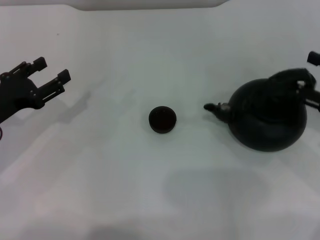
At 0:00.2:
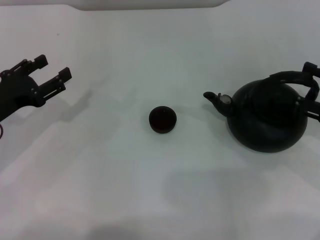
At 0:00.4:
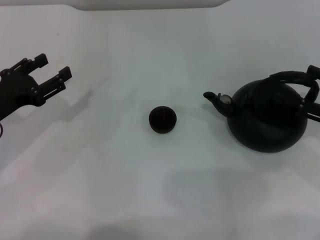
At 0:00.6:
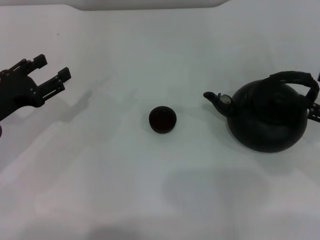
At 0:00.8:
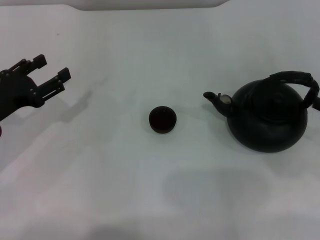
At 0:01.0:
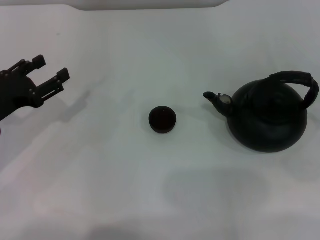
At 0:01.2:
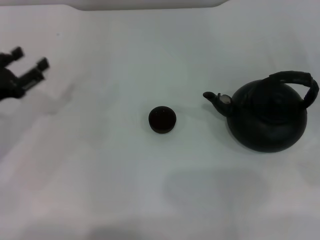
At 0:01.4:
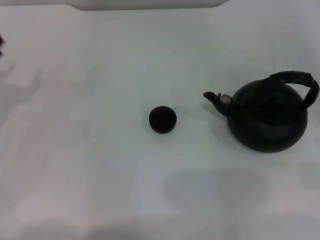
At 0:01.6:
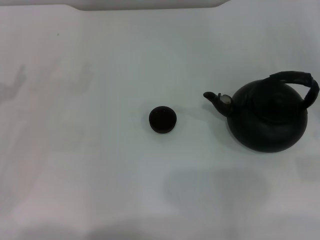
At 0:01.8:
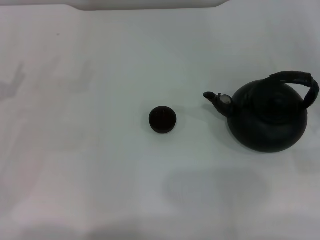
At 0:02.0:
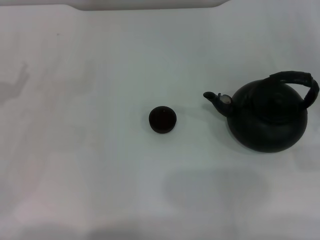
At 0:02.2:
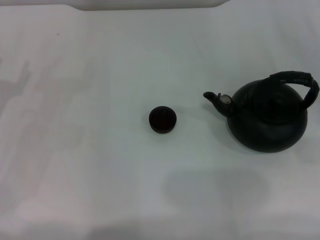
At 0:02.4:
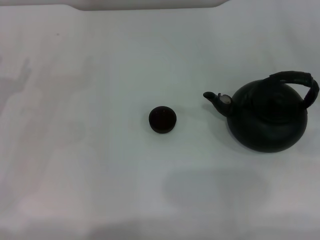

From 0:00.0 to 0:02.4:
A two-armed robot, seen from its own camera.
Task of the whole recording: Grasp the handle of the teapot with one hand and pour tea into the teacup.
From 0:00.0 to 0:01.2: The right gripper goes roughly 10 cm to the right.

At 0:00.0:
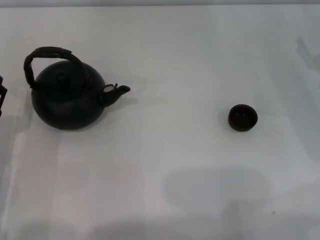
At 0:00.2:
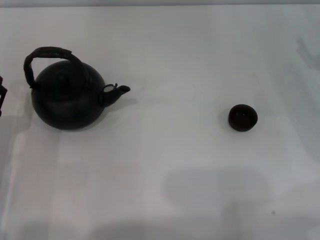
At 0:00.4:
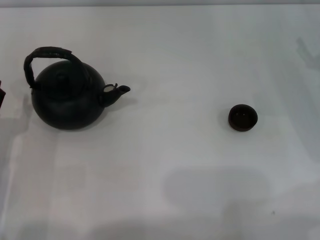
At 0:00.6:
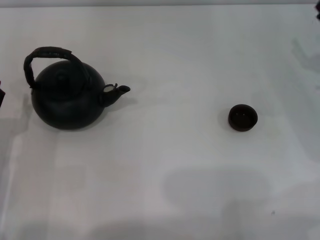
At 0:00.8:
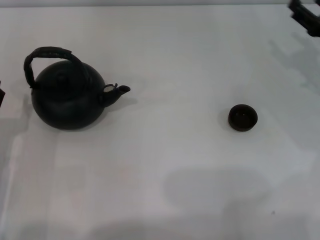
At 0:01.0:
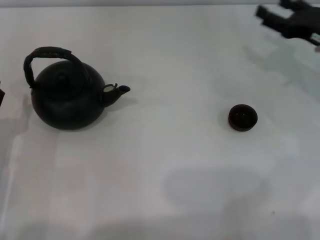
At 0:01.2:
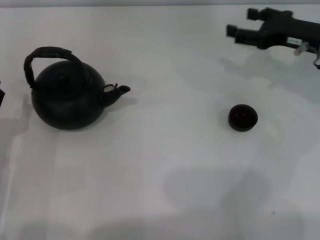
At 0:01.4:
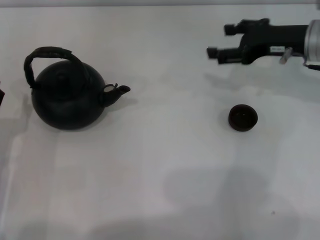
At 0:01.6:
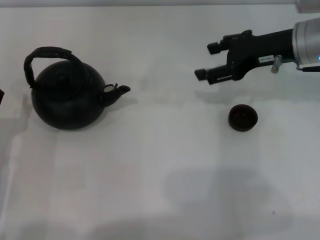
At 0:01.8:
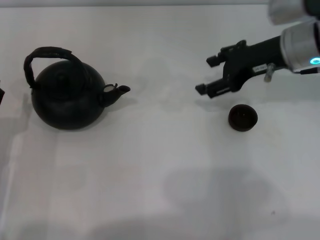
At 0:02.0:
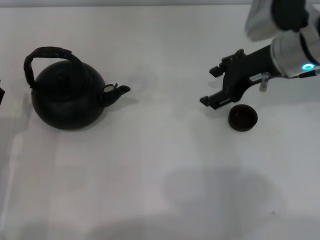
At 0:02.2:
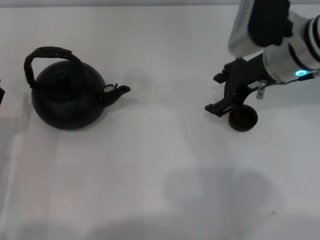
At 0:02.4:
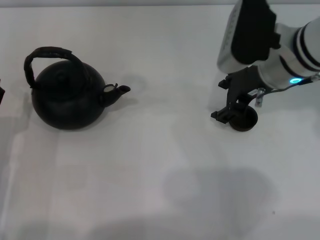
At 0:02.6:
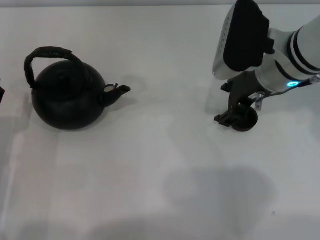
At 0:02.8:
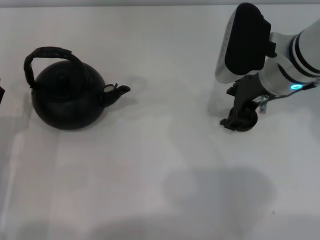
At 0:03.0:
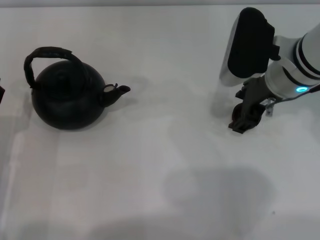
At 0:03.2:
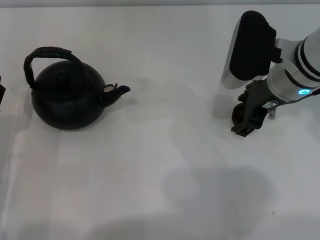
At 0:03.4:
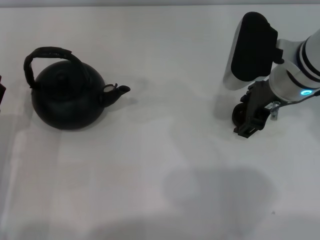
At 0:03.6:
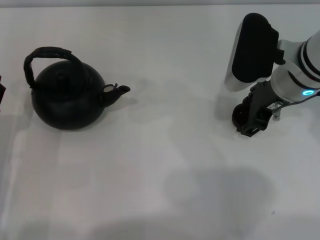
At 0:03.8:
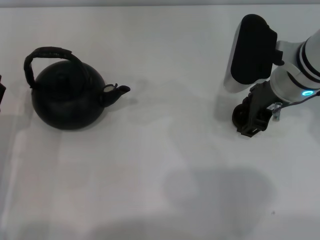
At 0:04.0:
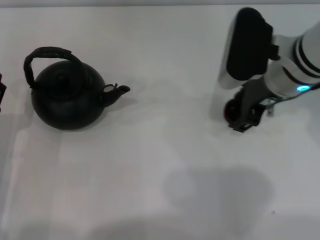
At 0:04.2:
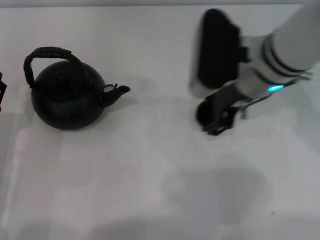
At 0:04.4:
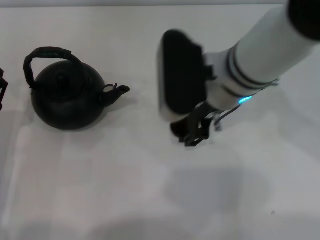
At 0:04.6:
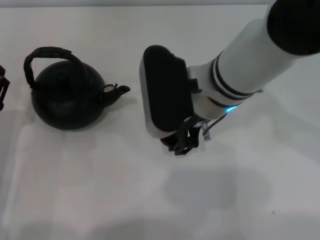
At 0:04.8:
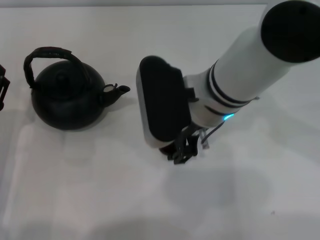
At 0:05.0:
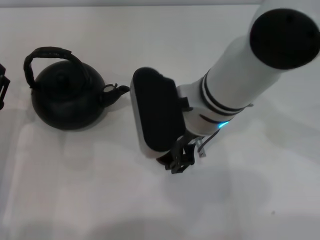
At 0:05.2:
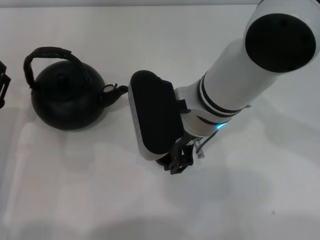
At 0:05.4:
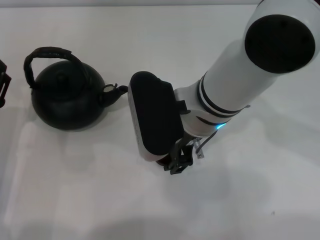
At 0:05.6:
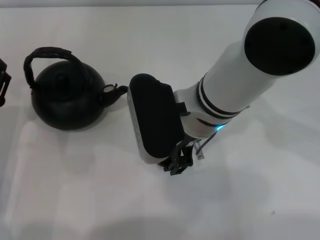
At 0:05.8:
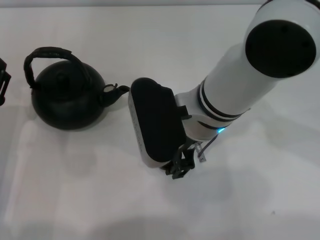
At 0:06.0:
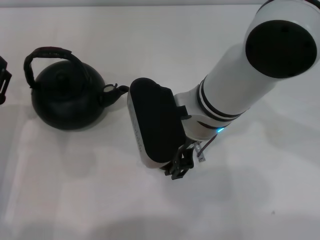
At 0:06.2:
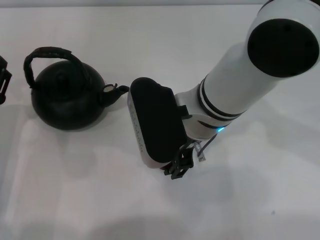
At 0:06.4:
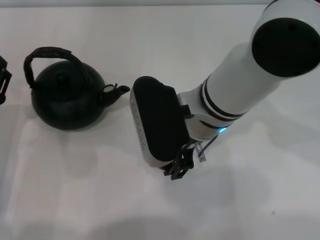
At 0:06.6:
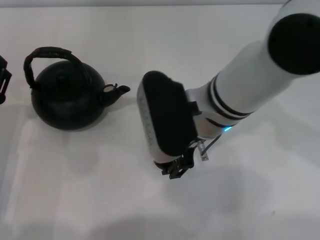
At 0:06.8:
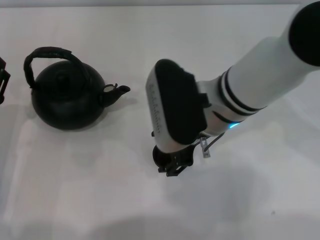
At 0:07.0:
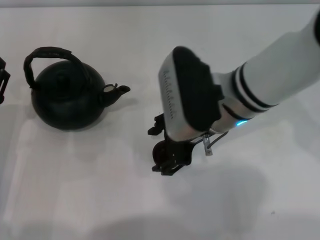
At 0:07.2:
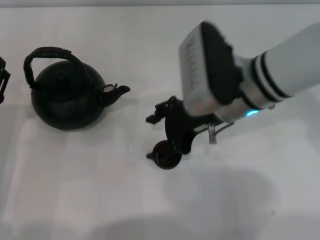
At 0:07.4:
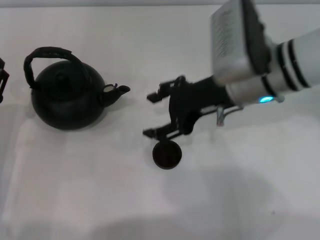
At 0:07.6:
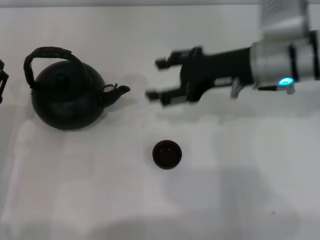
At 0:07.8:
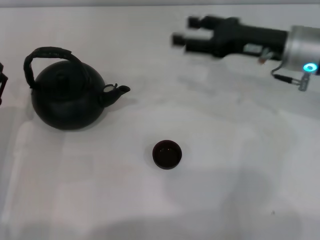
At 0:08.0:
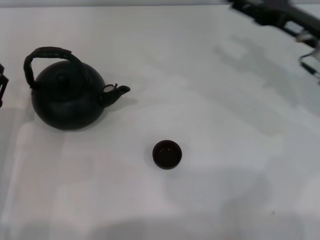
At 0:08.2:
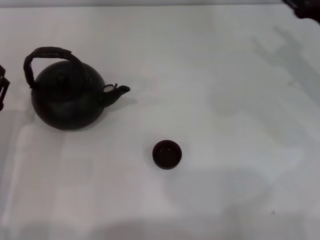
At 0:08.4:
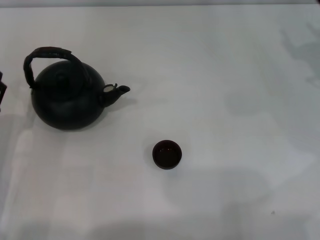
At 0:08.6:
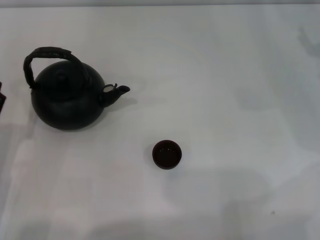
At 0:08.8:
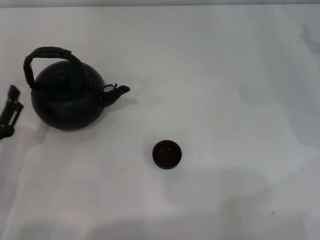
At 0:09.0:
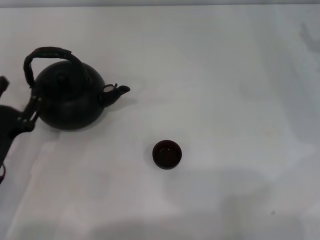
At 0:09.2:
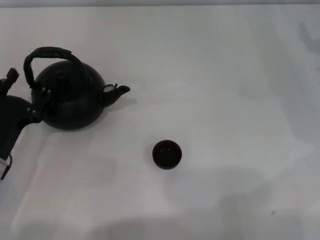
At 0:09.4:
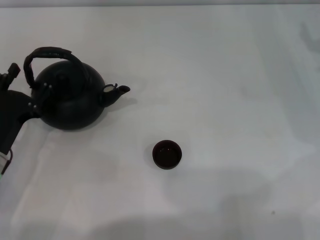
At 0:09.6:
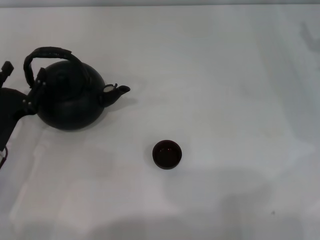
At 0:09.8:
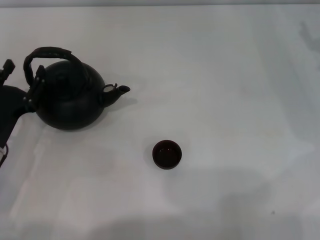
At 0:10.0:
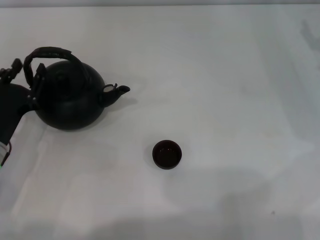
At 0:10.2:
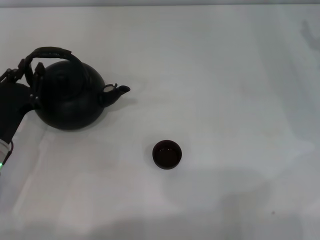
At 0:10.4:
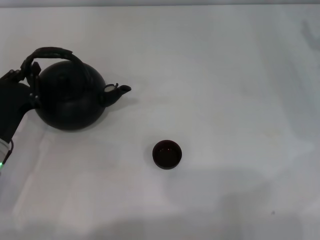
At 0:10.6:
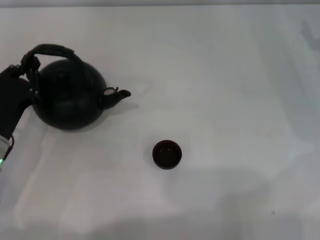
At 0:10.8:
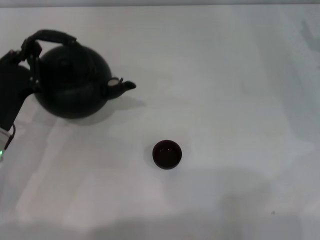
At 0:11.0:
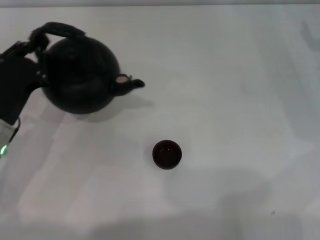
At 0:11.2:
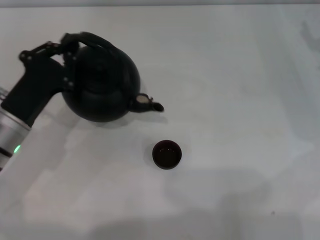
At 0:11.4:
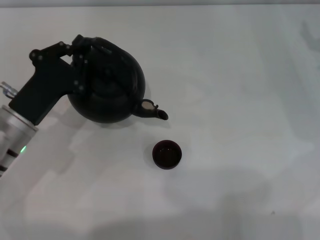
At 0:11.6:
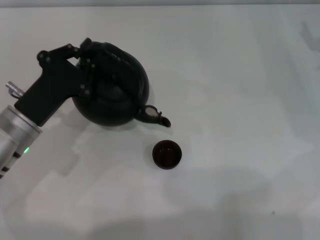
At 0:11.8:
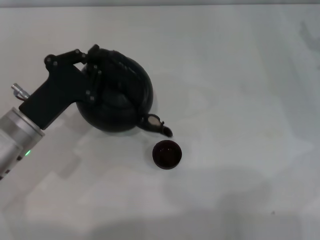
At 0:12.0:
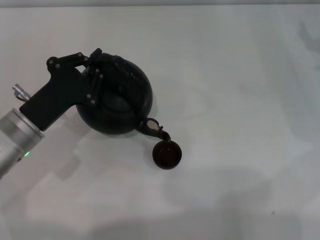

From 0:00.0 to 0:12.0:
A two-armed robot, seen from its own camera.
Task of the whole recording: Grasp the handle of the teapot with one hand and pour tea into the teacup.
Step, from 0:00.0 to 0:03.8: Pick up the teacup with the right gripper.
Step, from 0:04.0 to 0:07.2: Place the teacup in the center of view with the right gripper.
Step, from 0:07.4 to 0:10.8: Pick up the teapot with the left gripper.
From 0:00.0 to 0:01.6: The right gripper travels to the left, upward and forward by about 15 cm.
From 0:01.6 to 0:03.0: The right gripper is displaced to the left by roughly 5 cm.
From 0:03.0 to 0:04.4: The right gripper heads to the left, covering about 10 cm.
From 0:06.0 to 0:07.6: The right gripper is displaced to the right by some 10 cm.
From 0:07.6 to 0:09.0: The right gripper goes roughly 20 cm to the right.
From 0:09.0 to 0:10.4: The left gripper closes up.
From 0:10.4 to 0:12.0: The left gripper shifts by approximately 5 cm.

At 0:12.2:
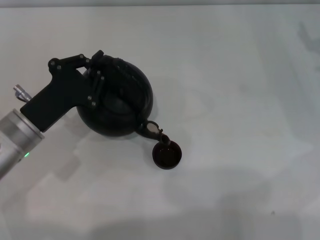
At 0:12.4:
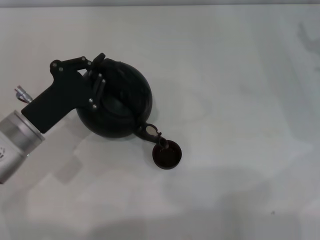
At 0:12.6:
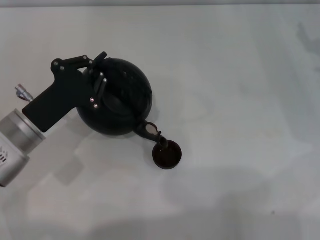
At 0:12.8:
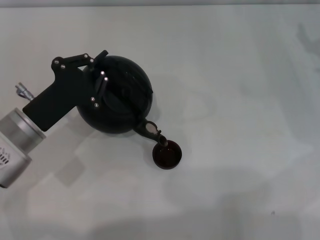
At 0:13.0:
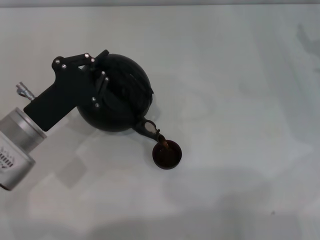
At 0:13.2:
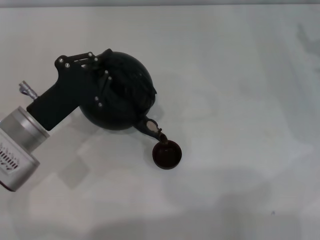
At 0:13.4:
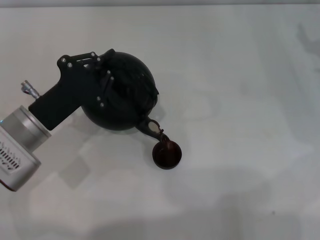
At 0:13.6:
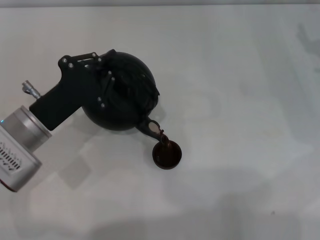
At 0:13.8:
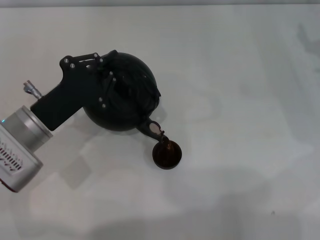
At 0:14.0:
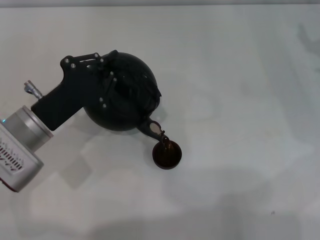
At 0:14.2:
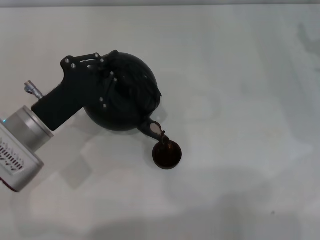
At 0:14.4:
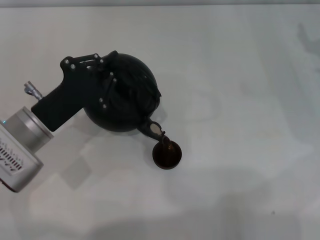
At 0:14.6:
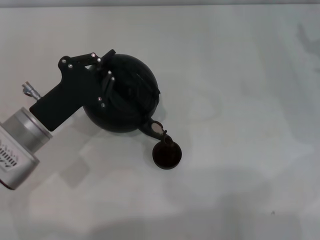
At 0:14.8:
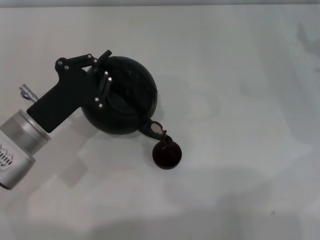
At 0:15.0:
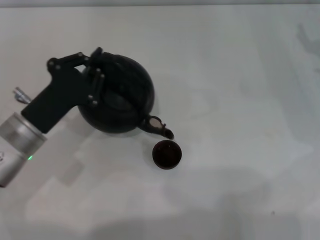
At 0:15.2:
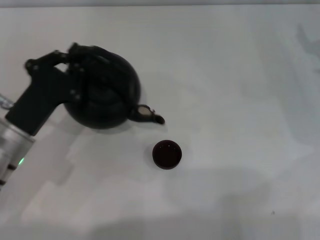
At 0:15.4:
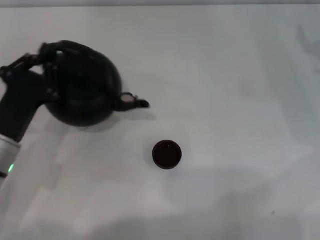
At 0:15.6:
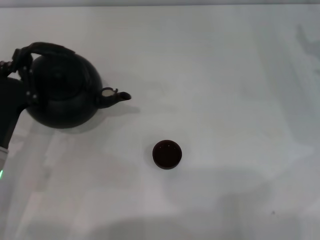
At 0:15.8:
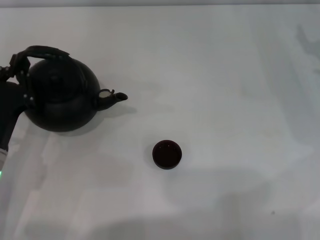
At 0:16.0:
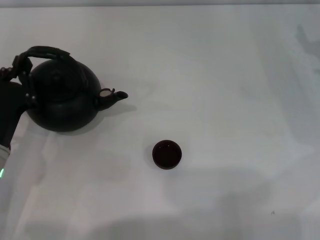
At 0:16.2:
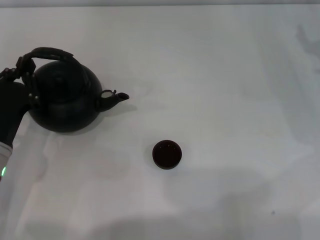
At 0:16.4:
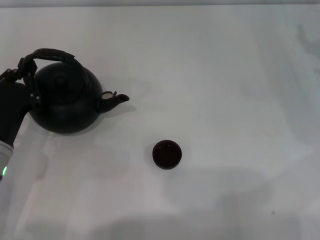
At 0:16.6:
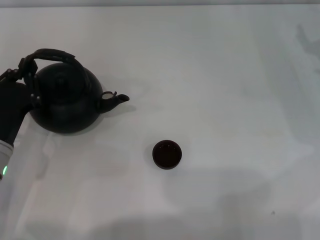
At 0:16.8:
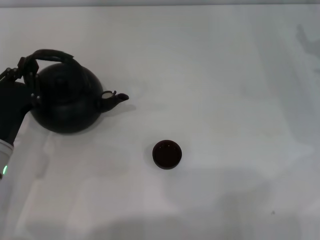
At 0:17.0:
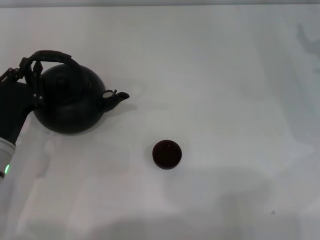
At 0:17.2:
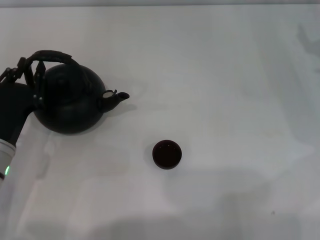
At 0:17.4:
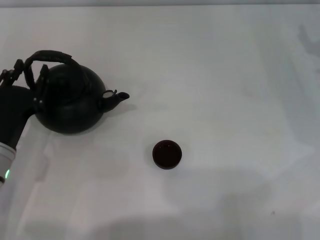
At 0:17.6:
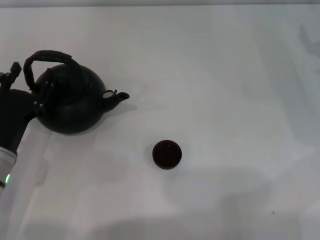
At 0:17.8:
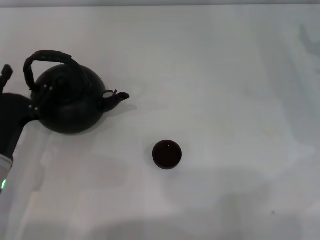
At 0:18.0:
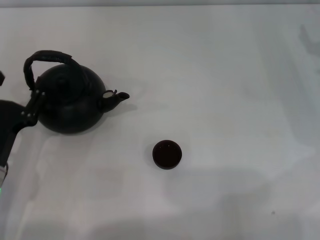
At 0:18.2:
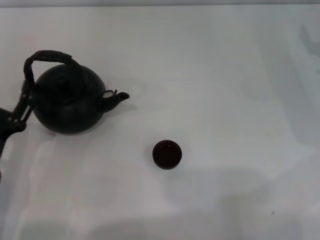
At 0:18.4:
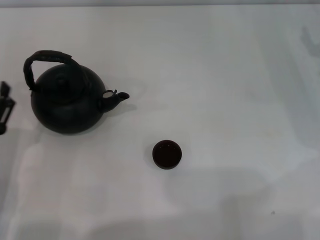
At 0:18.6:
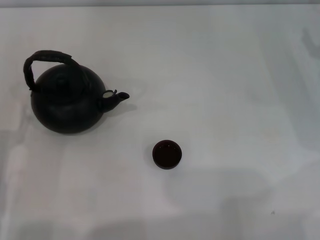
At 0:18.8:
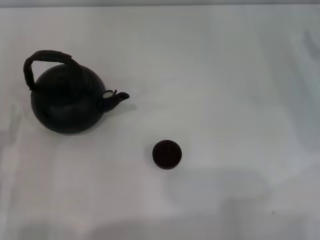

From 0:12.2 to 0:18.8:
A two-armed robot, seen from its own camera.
Task of the whole recording: Grasp the handle of the teapot with one hand and pour tea into the teacup.
Step, from 0:12.2 to 0:15.2: Pour tea into the teacup with the left gripper.
Step, from 0:15.4 to 0:17.8: Put down the teapot with the left gripper.
From 0:12.2 to 0:13.8: There are only small adjustments of the grippers.
From 0:15.4 to 0:17.2: There are only small adjustments of the grippers.
From 0:17.2 to 0:18.8: The left gripper shifts approximately 5 cm backward, and opens its fingers.
